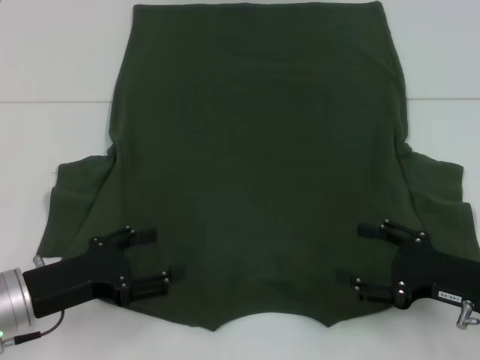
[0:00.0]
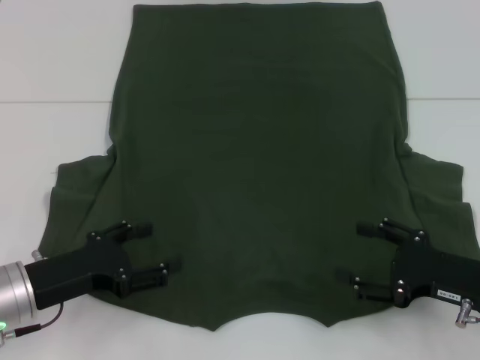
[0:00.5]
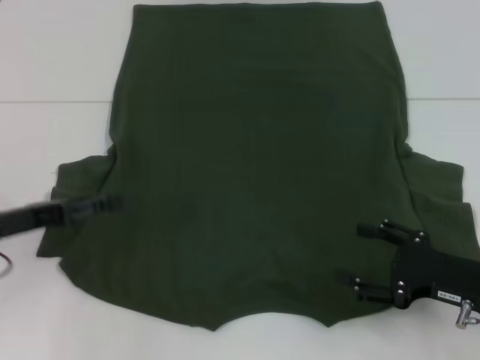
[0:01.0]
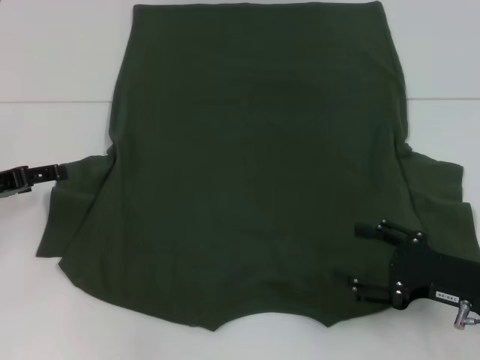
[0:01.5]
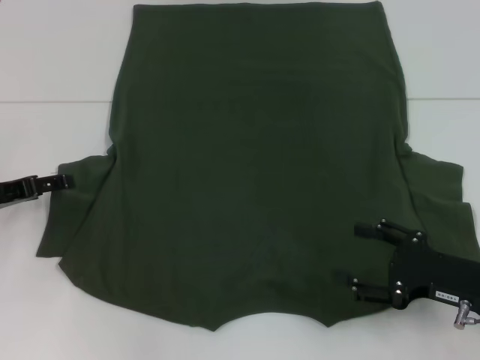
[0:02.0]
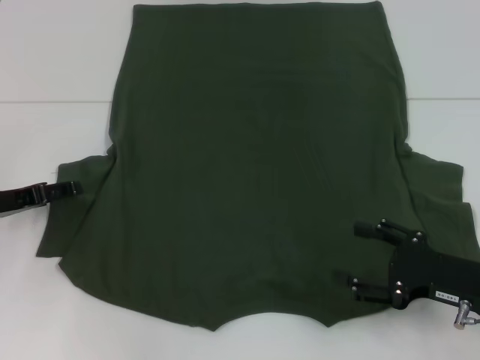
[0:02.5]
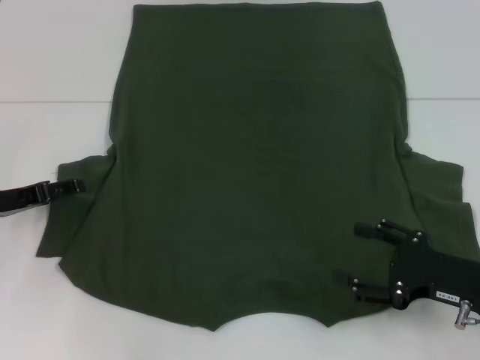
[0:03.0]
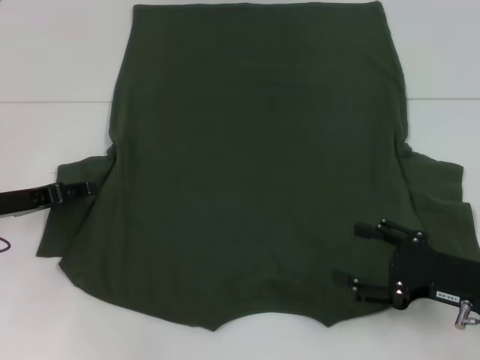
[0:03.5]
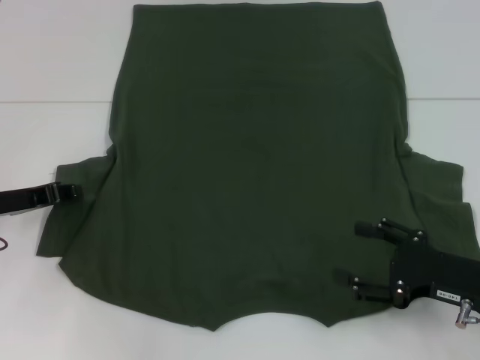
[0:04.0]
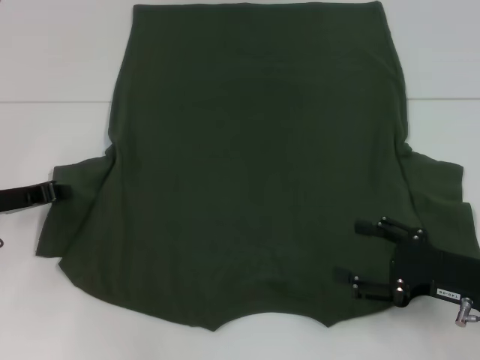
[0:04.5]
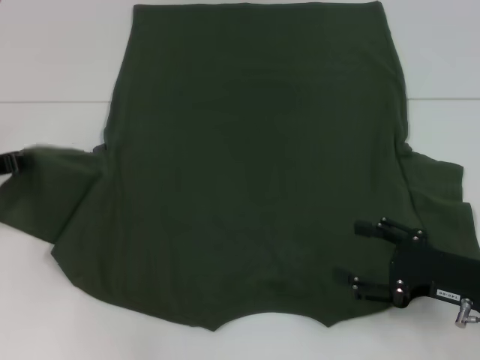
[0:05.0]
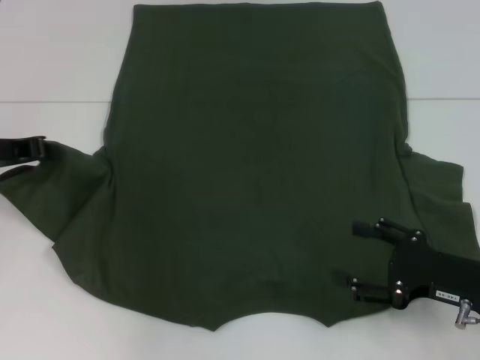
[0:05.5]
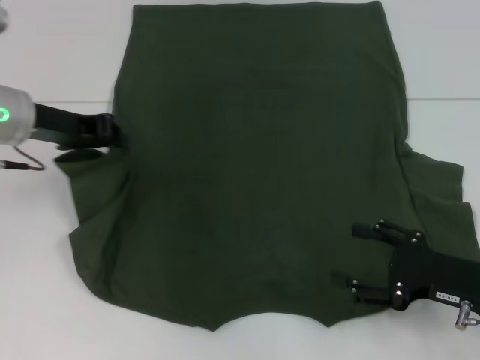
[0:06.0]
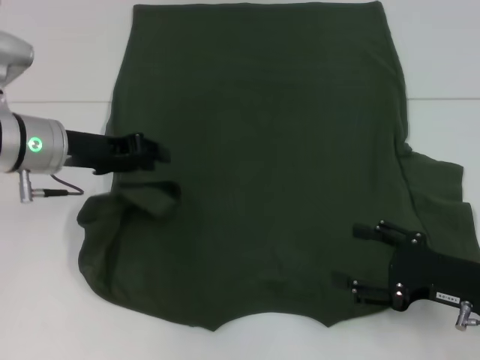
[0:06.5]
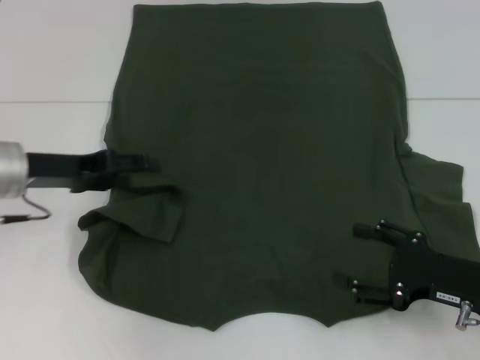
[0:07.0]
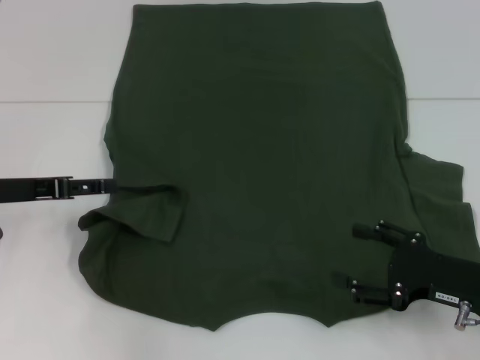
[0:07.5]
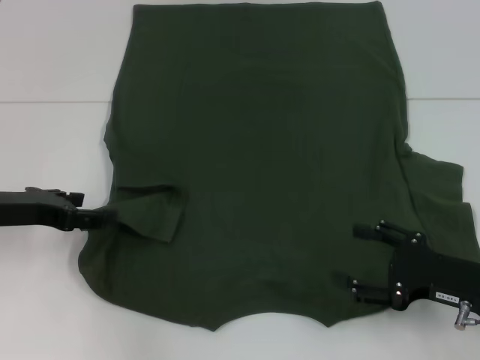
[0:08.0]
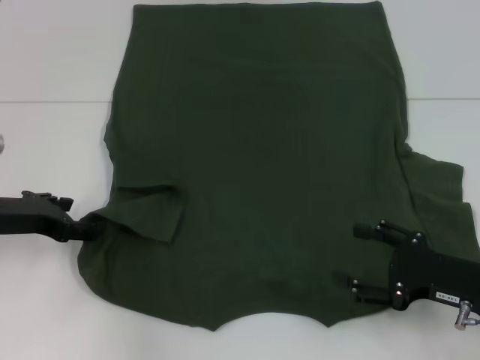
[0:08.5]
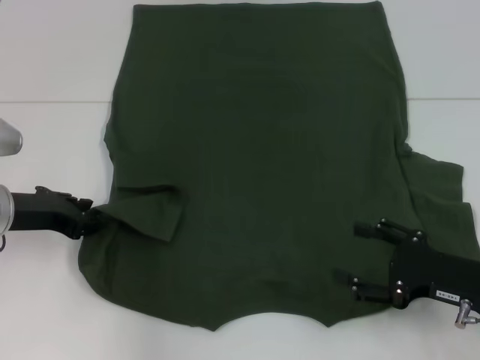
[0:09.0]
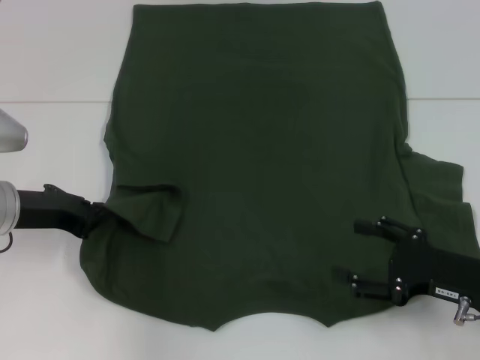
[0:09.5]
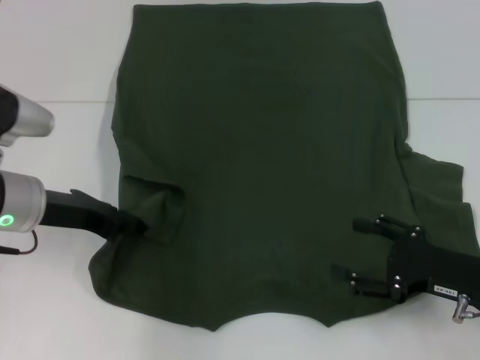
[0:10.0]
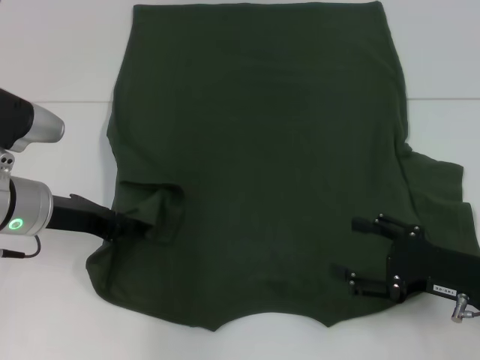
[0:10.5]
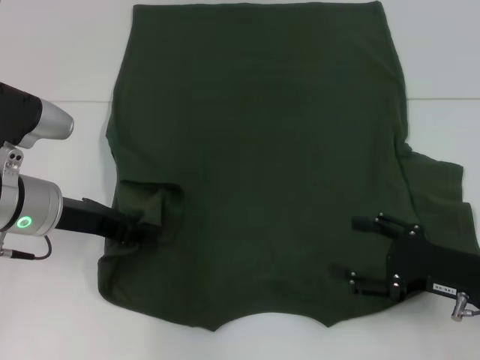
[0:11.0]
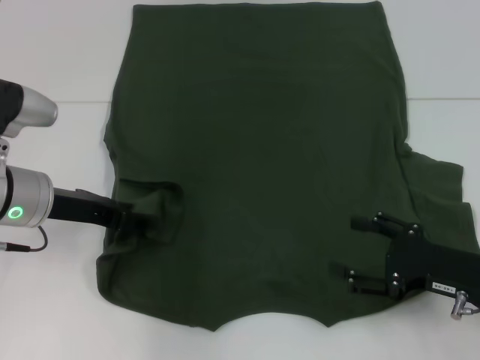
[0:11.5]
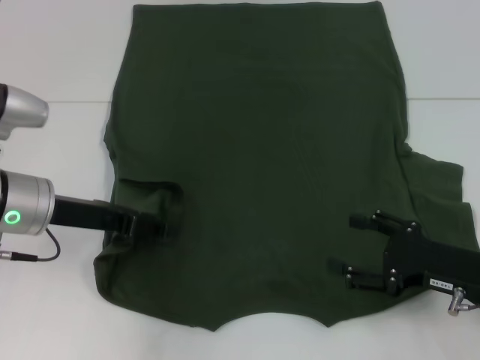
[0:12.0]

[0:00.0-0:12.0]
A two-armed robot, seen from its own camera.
0:00.0 to 0:02.0: The left gripper is displaced forward and to the left by about 15 cm.
0:02.0 to 0:04.0: The left gripper closes its fingers.
0:04.0 to 0:06.0: The left gripper travels upward, to the right and forward by some 15 cm, and closes.
0:06.0 to 0:08.0: The left gripper moves backward and downward, about 10 cm, and opens up.
0:08.0 to 0:10.0: The left gripper is displaced to the right by approximately 5 cm, and closes its fingers.
0:10.0 to 0:12.0: The left gripper opens.

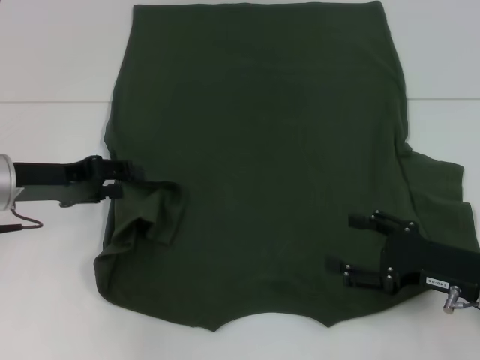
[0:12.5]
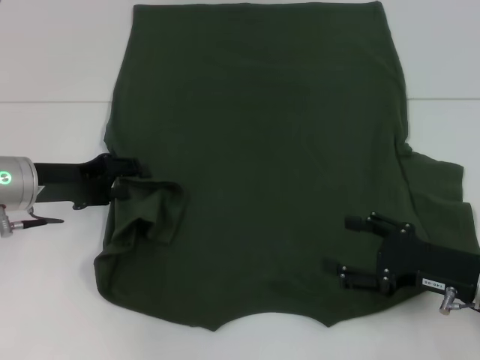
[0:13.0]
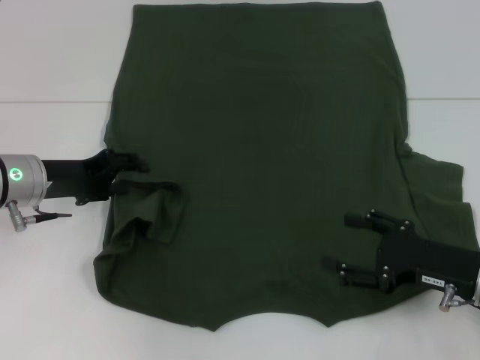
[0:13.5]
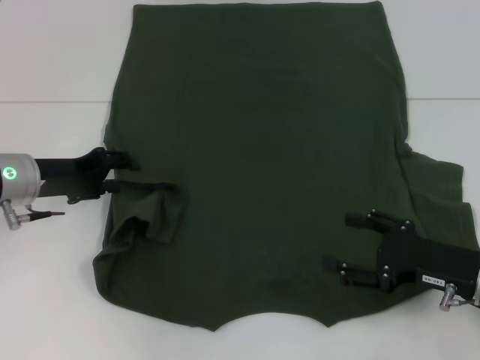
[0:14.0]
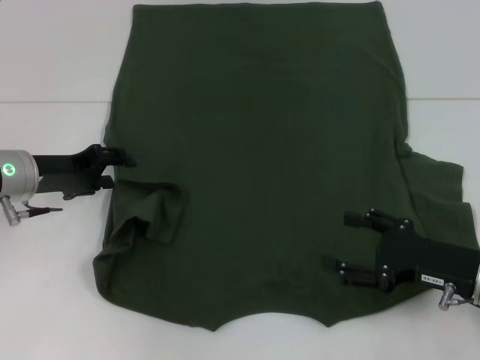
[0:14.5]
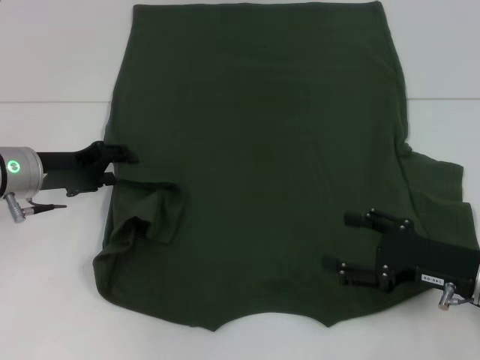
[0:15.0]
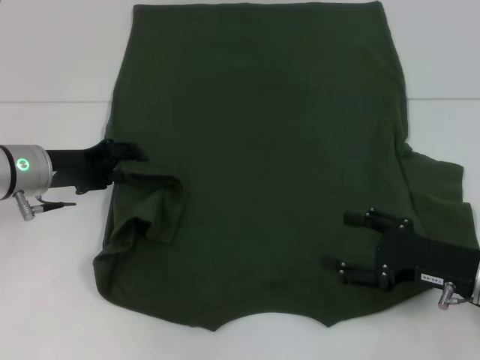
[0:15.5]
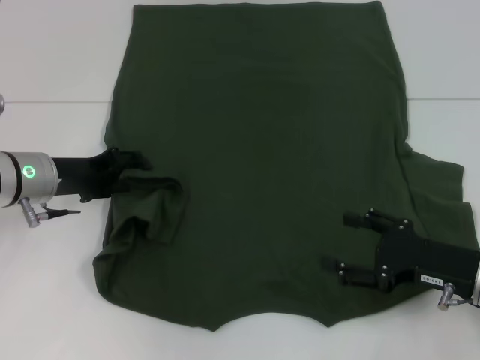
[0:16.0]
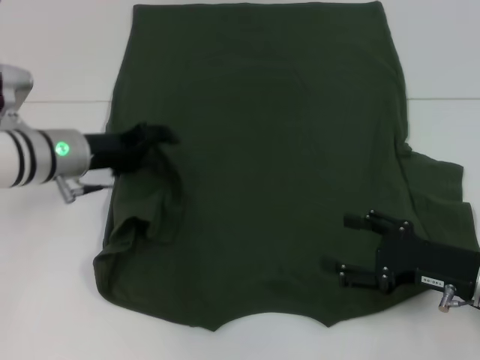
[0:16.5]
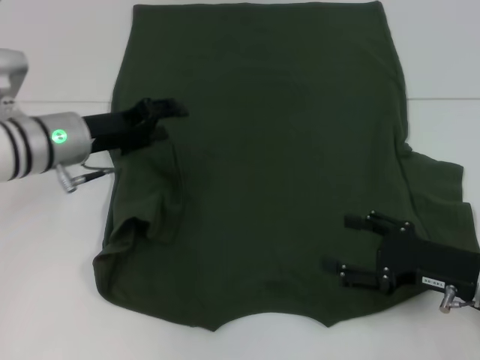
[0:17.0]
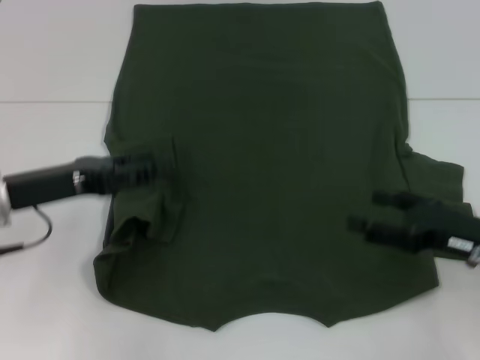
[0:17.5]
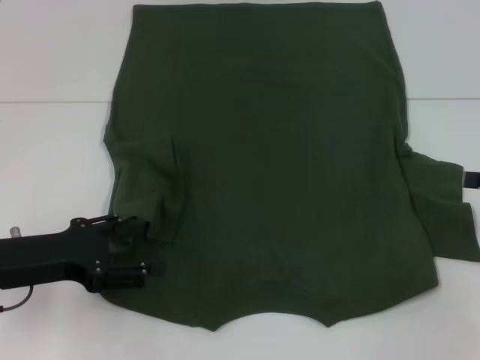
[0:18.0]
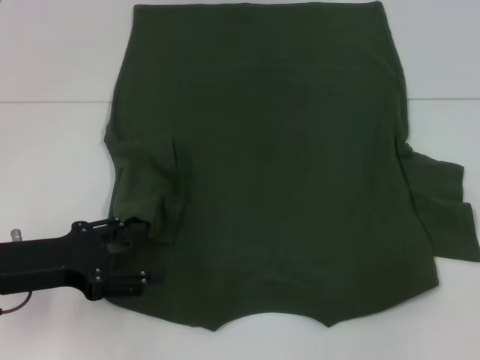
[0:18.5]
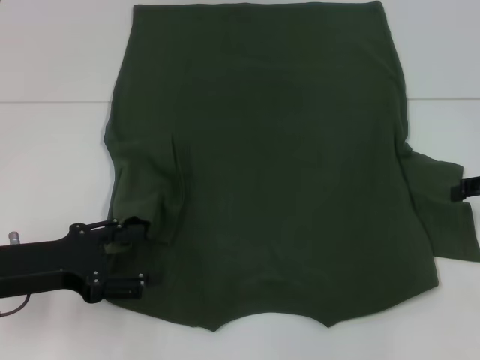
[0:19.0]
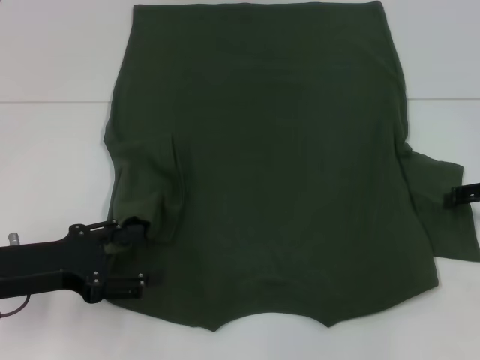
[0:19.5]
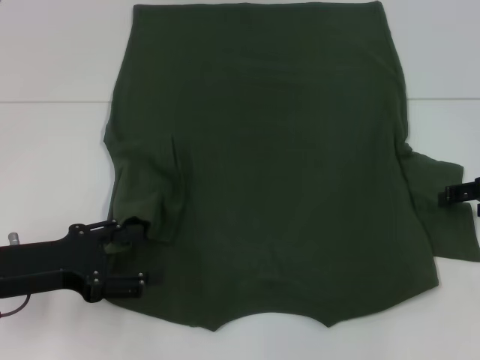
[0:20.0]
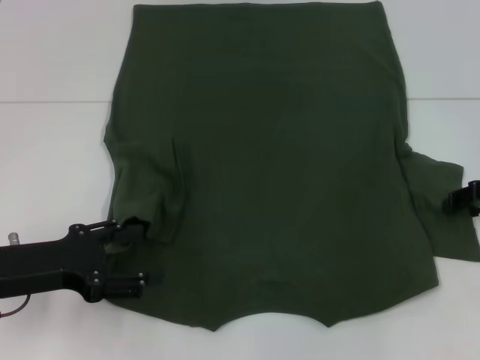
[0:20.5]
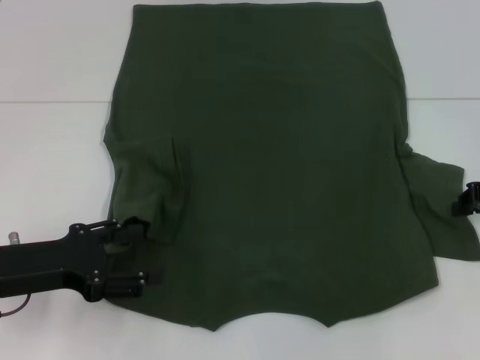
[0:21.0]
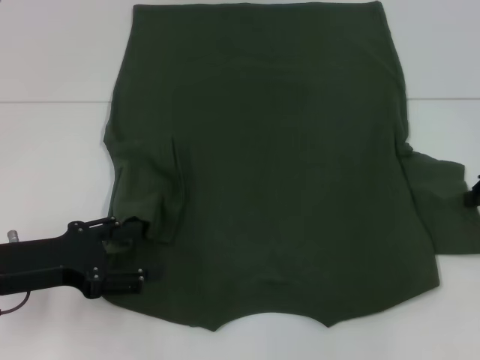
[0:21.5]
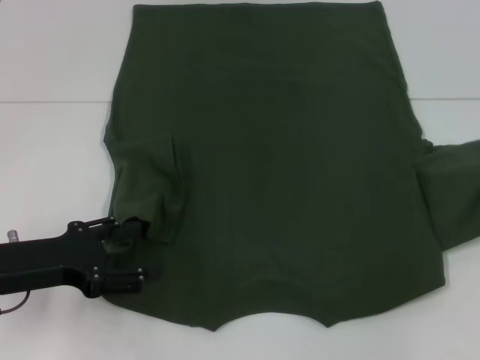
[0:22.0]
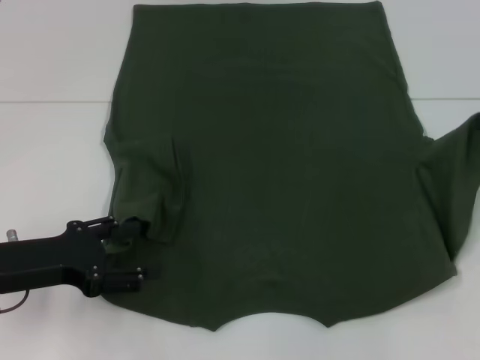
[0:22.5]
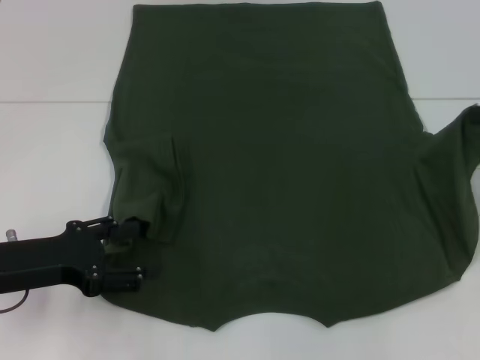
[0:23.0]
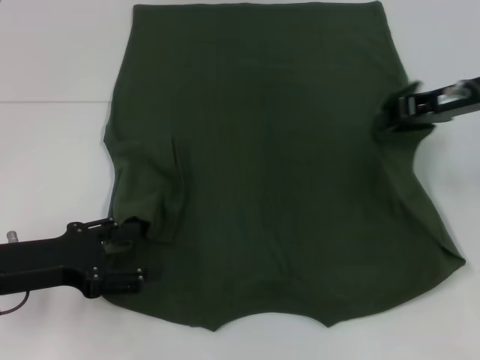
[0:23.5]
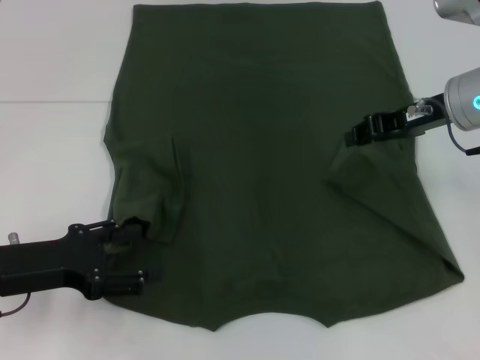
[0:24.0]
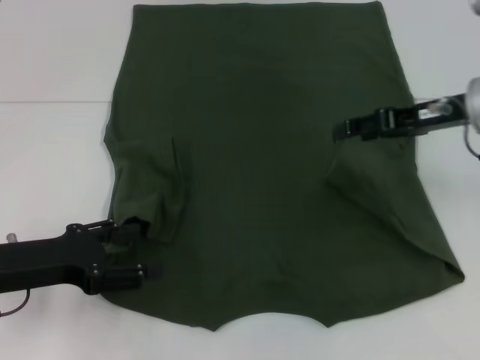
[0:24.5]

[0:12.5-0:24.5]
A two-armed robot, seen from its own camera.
Step, 0:12.5 to 0:17.0: Fold the bottom left sleeve with your left hand.
Step, 0:17.5 to 0:24.0: Fold the bottom right sleeve with your right hand.
0:12.5 to 0:14.5: There are only small adjustments of the grippers.
0:14.5 to 0:16.5: The left gripper shifts roughly 5 cm to the right.
0:16.5 to 0:18.5: The left gripper is displaced backward and to the left by roughly 15 cm. Meanwhile the right gripper travels to the right, upward and forward by some 20 cm.
0:20.5 to 0:22.5: The right gripper heads upward, covering approximately 5 cm, and closes.
0:22.5 to 0:24.5: The right gripper is displaced to the left by roughly 10 cm, and opens up.

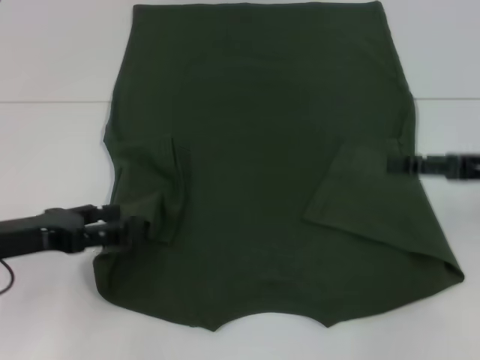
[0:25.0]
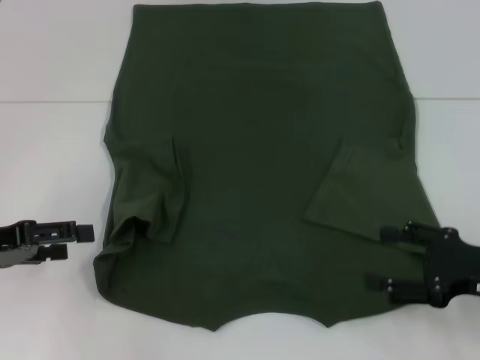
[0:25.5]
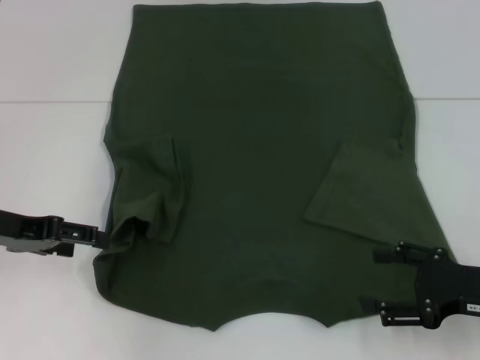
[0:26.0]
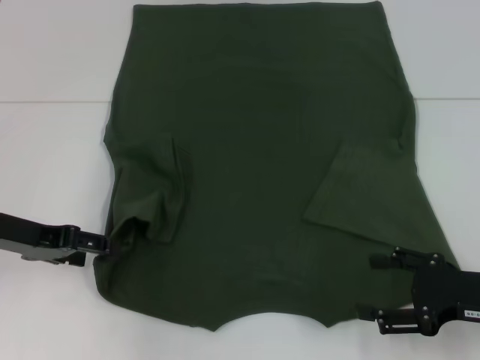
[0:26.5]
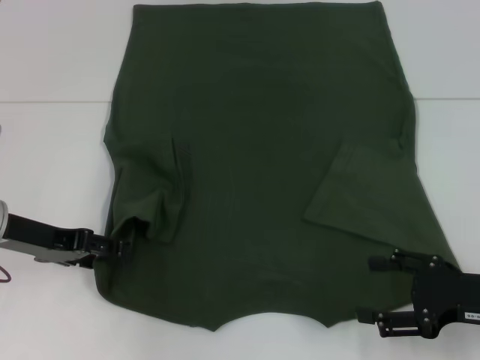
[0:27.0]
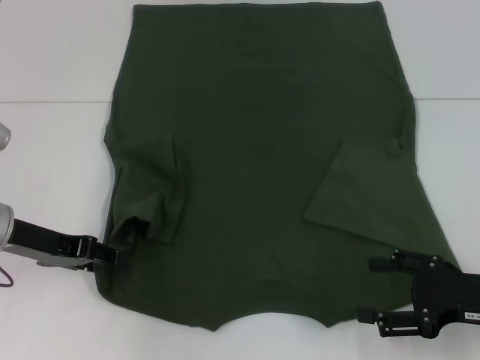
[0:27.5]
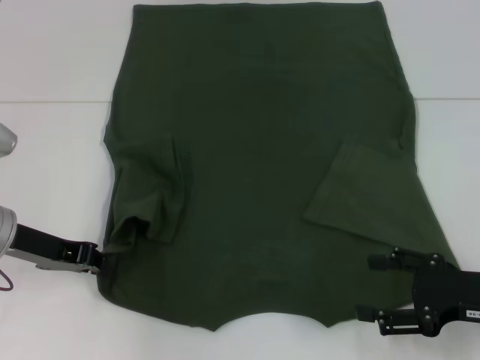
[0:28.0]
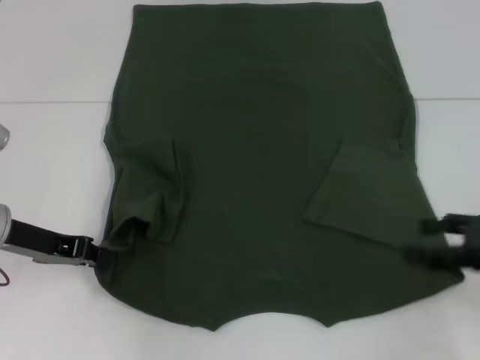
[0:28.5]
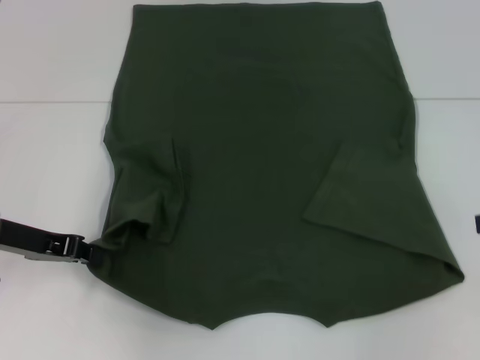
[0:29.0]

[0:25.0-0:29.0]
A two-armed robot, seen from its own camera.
Step, 0:25.0 to 0:28.5: Grab the bottom left corner with your left hand.
0:25.0 to 0:27.0: The right gripper goes some 10 cm downward and backward. The left gripper moves forward, roughly 5 cm.
0:27.0 to 0:29.0: The right gripper is displaced upward and to the right by approximately 15 cm. Meanwhile the left gripper closes up.
